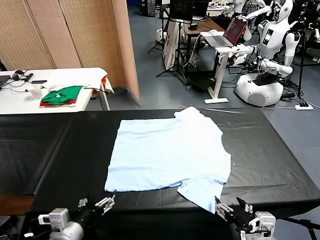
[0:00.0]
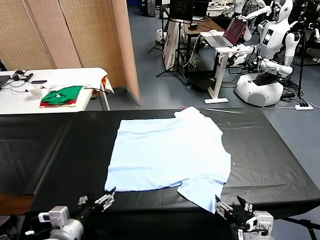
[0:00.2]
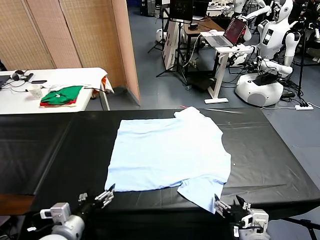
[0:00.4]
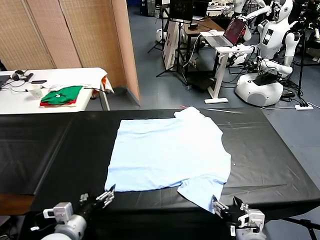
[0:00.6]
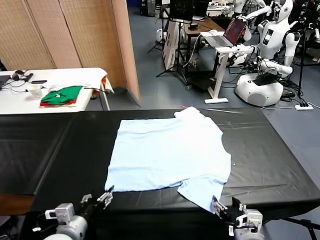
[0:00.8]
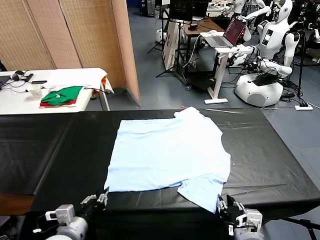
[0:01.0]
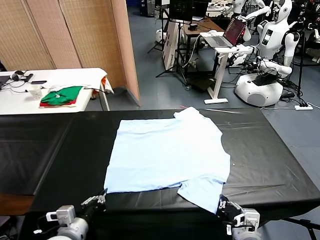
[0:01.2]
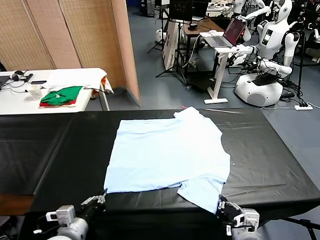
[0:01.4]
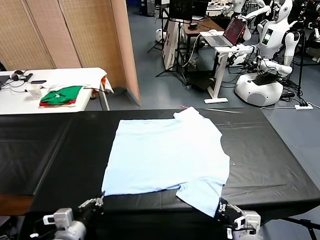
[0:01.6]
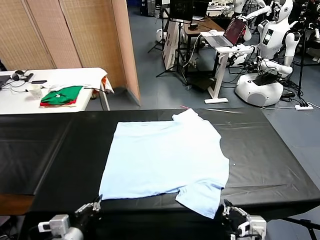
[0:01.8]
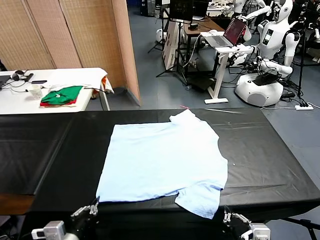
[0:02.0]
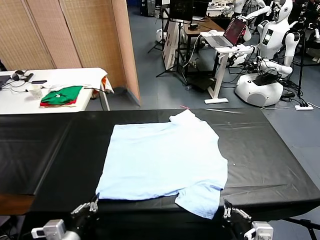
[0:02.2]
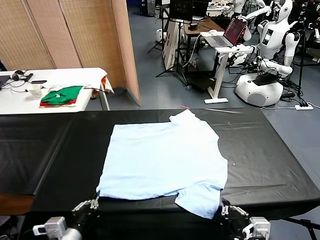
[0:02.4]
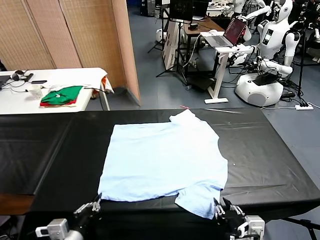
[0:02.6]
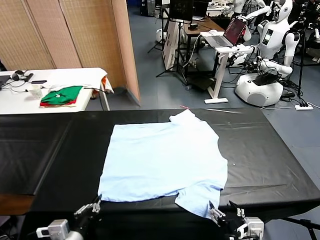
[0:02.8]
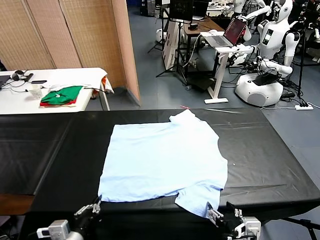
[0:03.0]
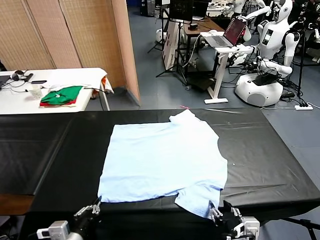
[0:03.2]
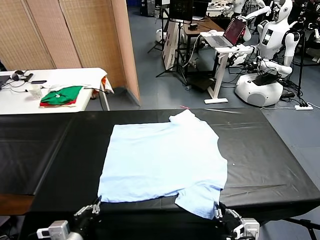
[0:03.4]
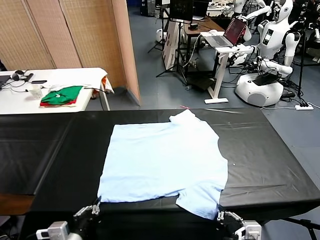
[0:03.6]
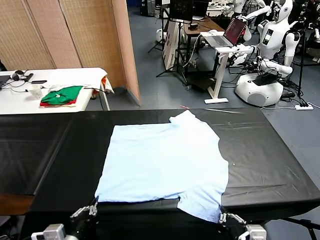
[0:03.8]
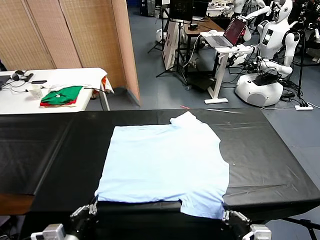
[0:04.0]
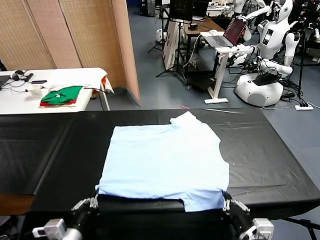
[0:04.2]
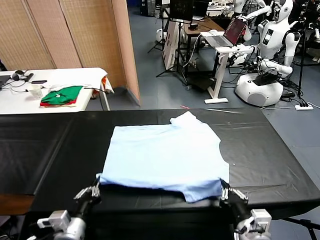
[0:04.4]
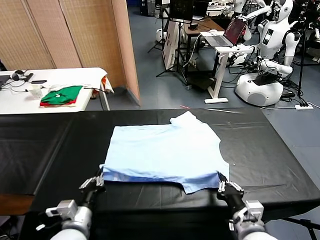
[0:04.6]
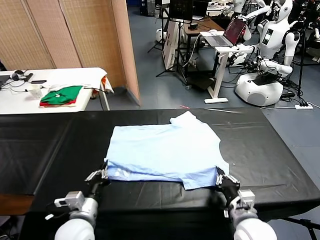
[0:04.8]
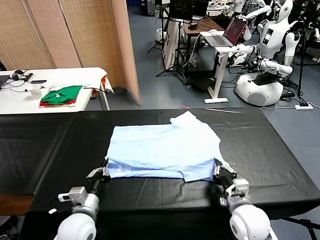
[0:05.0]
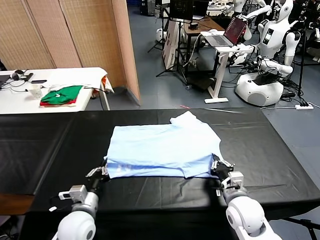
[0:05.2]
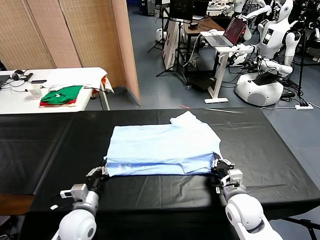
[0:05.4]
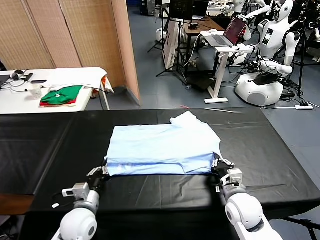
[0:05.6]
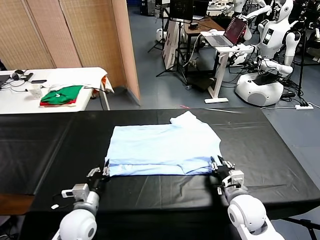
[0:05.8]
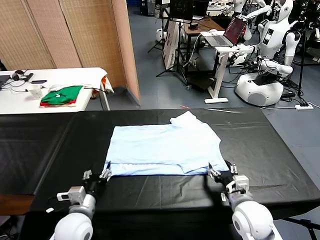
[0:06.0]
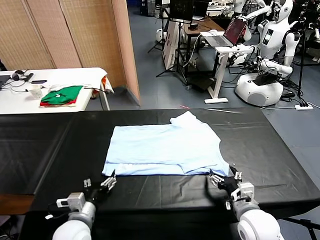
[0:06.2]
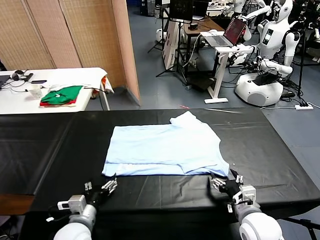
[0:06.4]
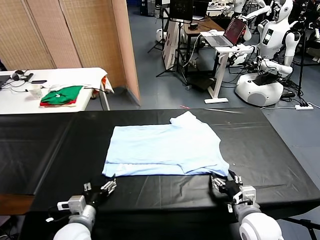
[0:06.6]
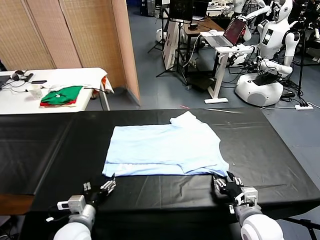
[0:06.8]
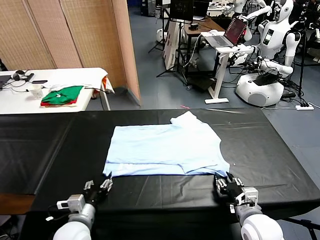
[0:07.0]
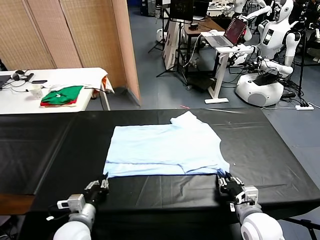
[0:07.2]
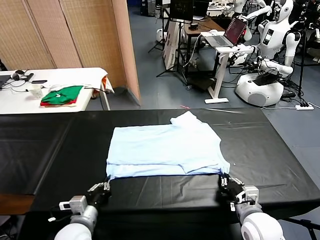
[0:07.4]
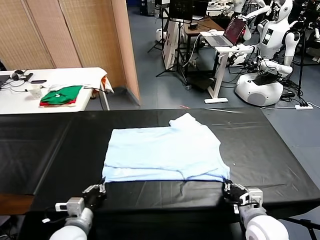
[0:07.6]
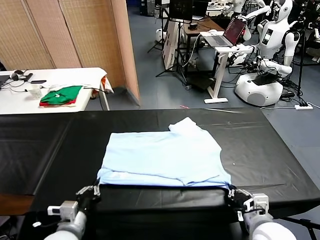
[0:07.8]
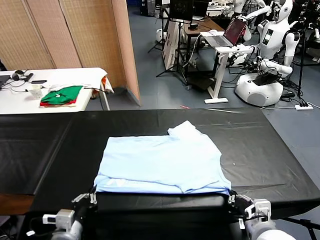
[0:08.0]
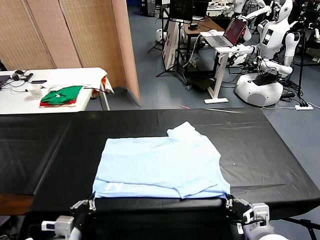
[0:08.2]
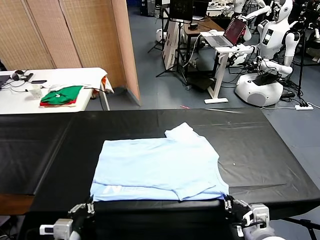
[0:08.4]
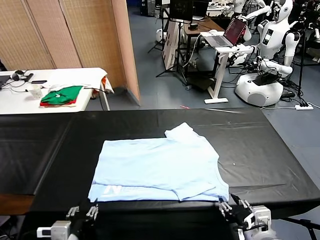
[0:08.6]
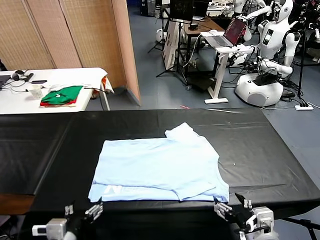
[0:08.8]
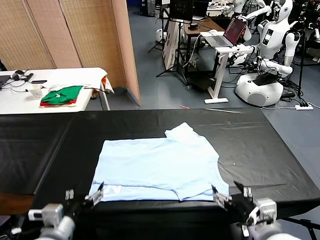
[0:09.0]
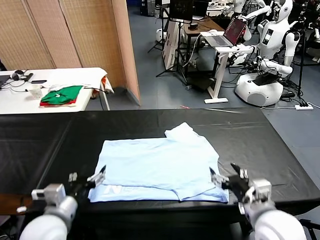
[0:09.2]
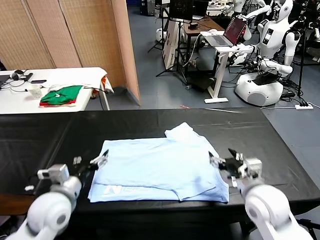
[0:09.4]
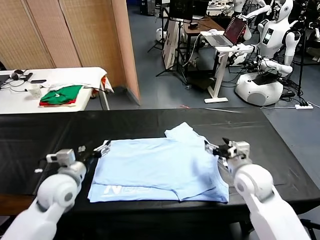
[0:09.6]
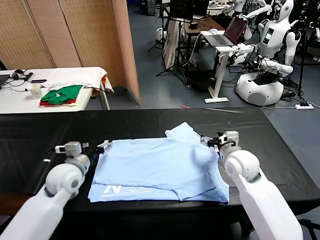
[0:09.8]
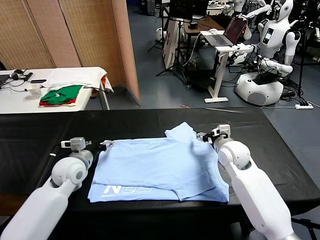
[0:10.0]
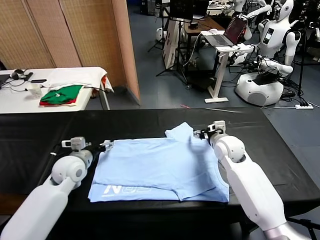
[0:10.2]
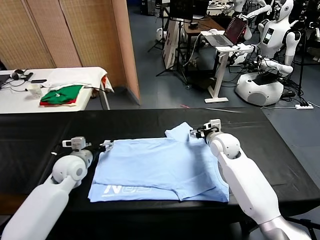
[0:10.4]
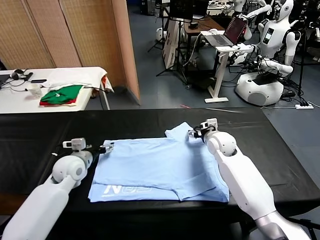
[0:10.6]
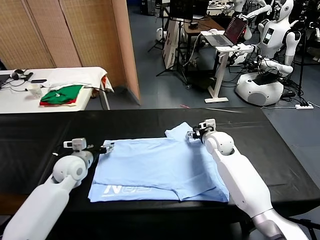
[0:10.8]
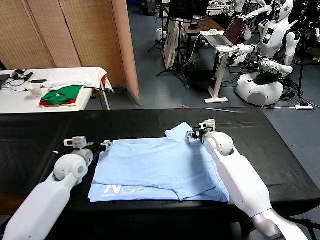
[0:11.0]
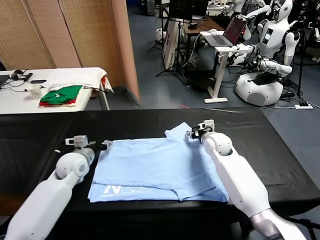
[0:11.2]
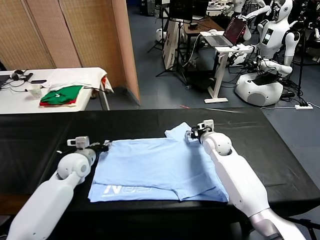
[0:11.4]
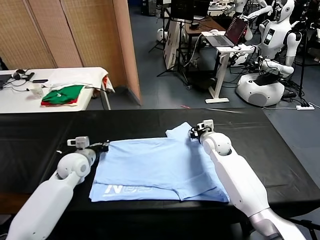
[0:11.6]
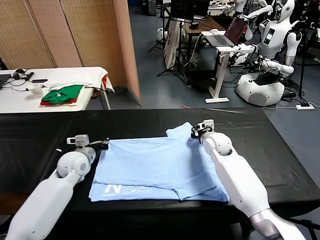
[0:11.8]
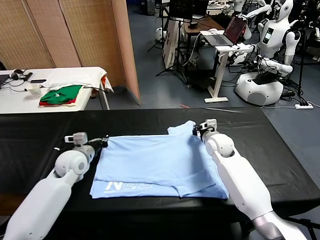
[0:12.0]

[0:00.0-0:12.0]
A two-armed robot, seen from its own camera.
Task of the whole recording: fold and organize the clothes.
Step, 0:00.0 to 0:01.0: use both grippers simultaneously to clamp the lower edge of the clothing fabric.
Step, 0:01.4 to 0:05.8: use both grippers to drag the lower edge of the fabric forward and fold it over the upper edge.
Step, 0:06.0 to 0:08.6: Drag the clothes downward with both gripper.
Step, 0:08.8 to 0:11.8: use both grippers simultaneously to clamp the upper edge of the clothing fabric.
0:01.6 to 0:03.0: The right gripper opens its fingers.
0:03.0 to 0:04.4: The right gripper closes.
0:04.4 to 0:06.0: The left gripper opens up, while the right gripper moves forward, about 5 cm, and opens.
0:06.0 to 0:07.6: The left gripper closes up. Meanwhile the right gripper moves about 5 cm, and closes its fingers.
0:07.6 to 0:09.0: The two grippers go roughly 5 cm upward. The left gripper opens its fingers. Meanwhile the right gripper opens up.
0:09.0 to 0:10.4: The grippers both shift forward by approximately 25 cm.
0:10.4 to 0:12.0: The right gripper closes; the left gripper closes.

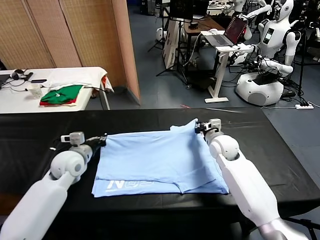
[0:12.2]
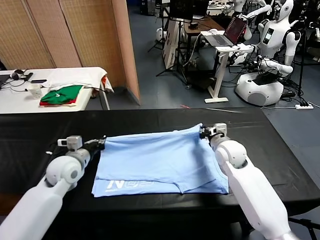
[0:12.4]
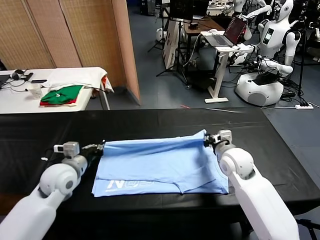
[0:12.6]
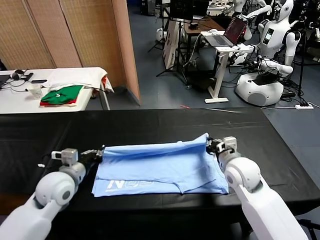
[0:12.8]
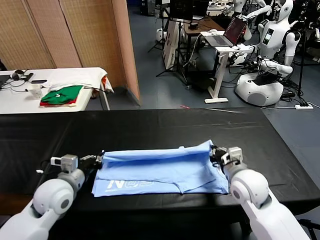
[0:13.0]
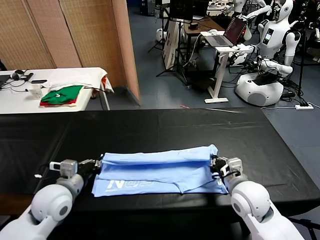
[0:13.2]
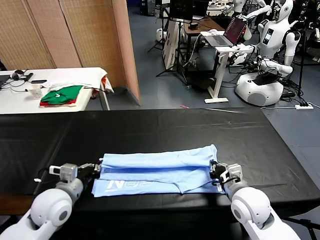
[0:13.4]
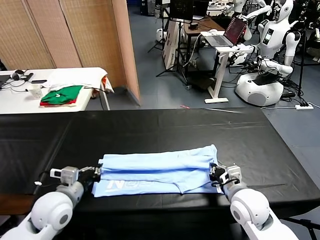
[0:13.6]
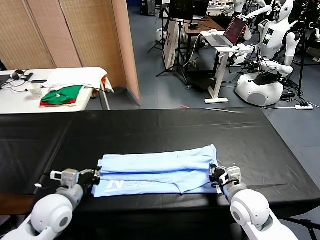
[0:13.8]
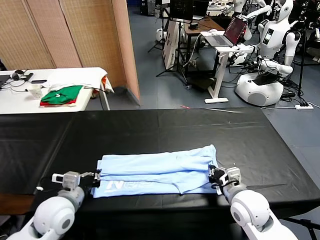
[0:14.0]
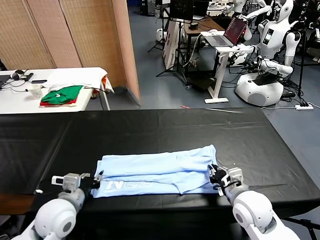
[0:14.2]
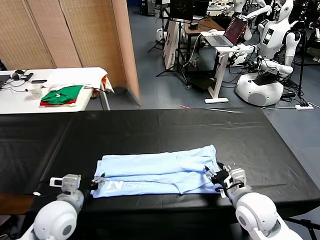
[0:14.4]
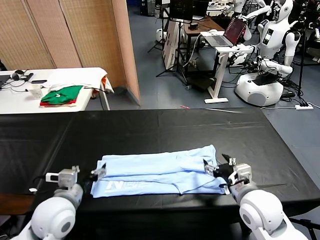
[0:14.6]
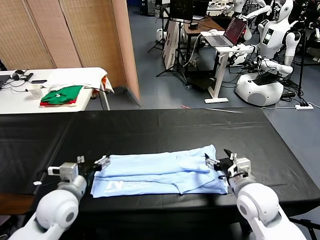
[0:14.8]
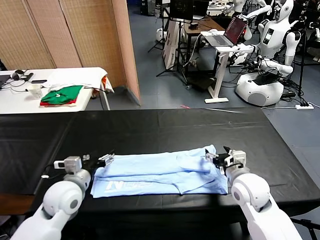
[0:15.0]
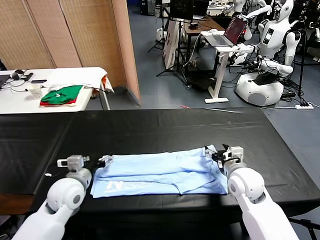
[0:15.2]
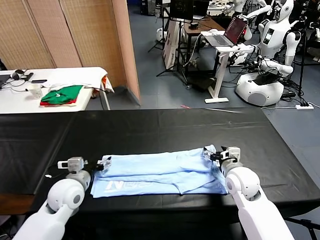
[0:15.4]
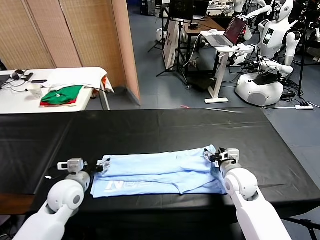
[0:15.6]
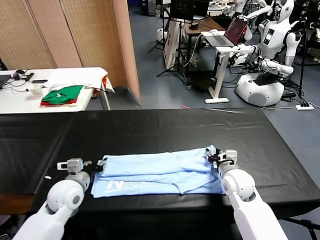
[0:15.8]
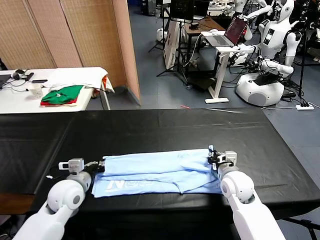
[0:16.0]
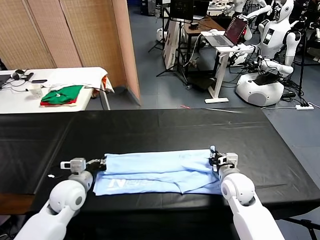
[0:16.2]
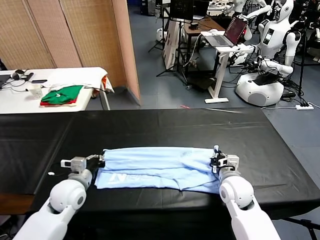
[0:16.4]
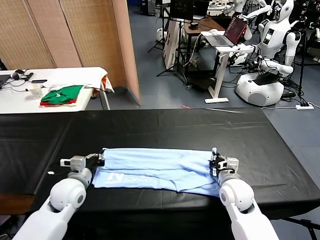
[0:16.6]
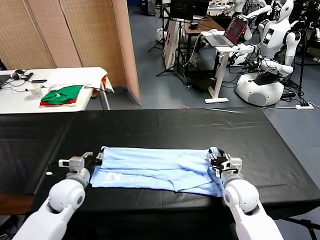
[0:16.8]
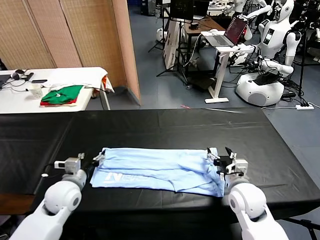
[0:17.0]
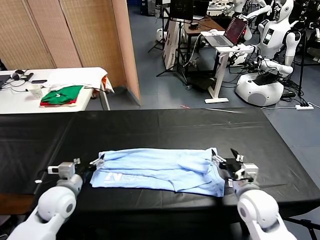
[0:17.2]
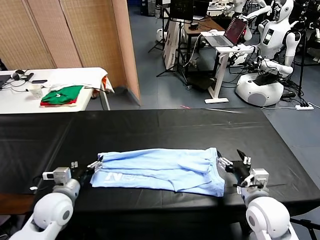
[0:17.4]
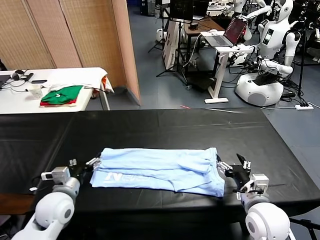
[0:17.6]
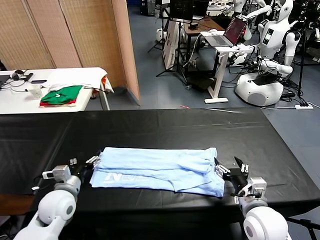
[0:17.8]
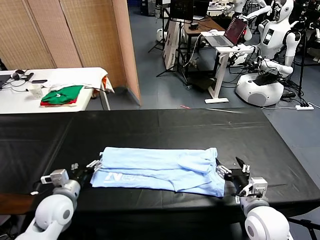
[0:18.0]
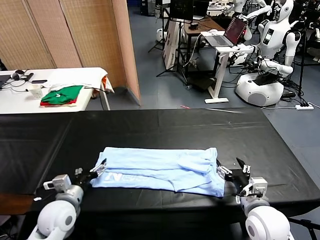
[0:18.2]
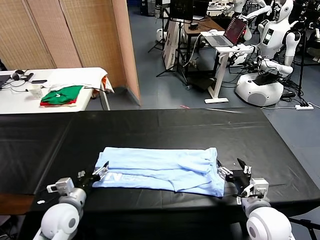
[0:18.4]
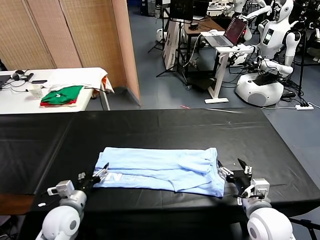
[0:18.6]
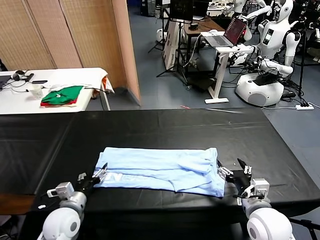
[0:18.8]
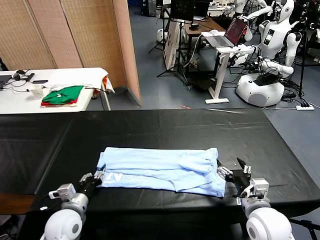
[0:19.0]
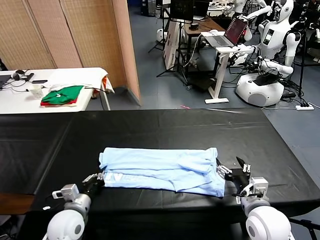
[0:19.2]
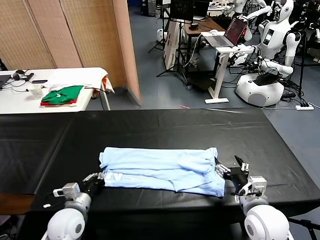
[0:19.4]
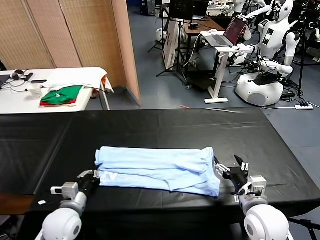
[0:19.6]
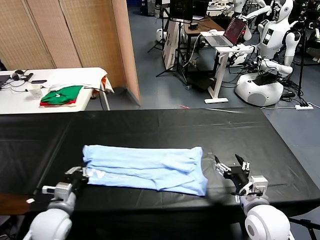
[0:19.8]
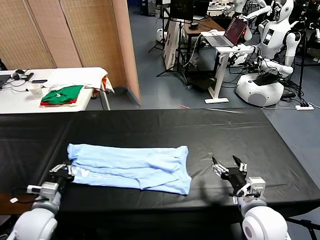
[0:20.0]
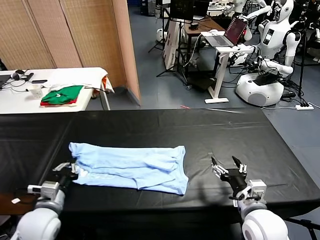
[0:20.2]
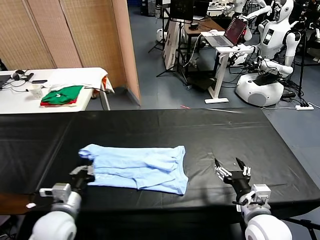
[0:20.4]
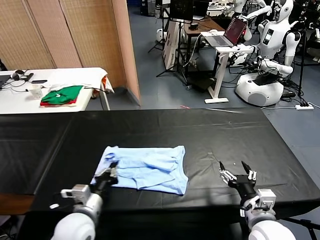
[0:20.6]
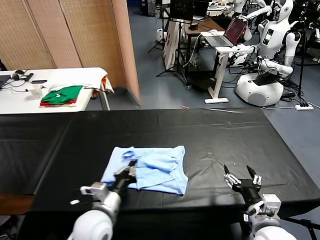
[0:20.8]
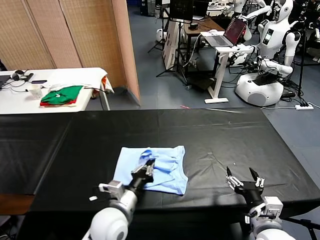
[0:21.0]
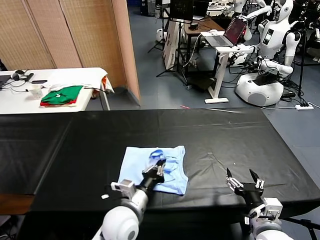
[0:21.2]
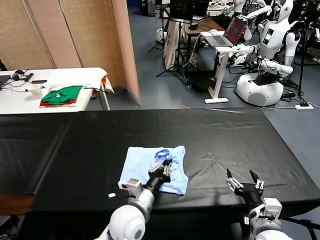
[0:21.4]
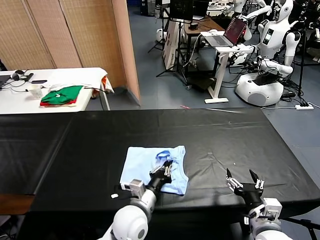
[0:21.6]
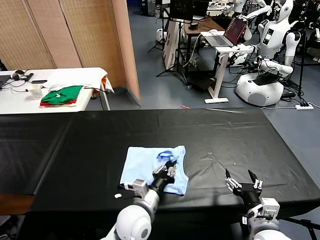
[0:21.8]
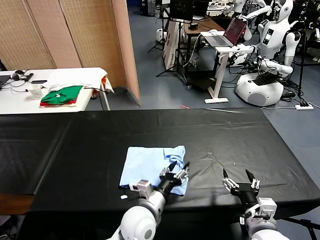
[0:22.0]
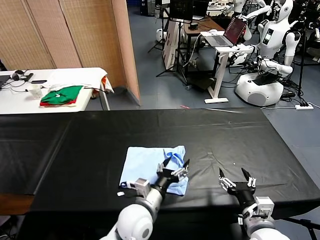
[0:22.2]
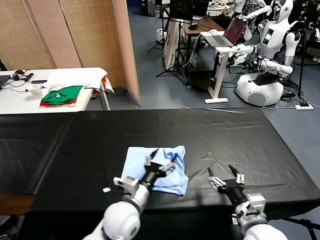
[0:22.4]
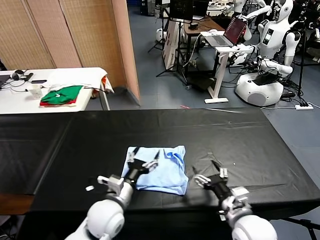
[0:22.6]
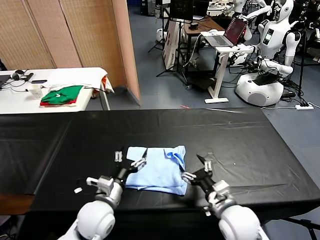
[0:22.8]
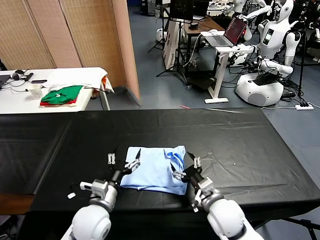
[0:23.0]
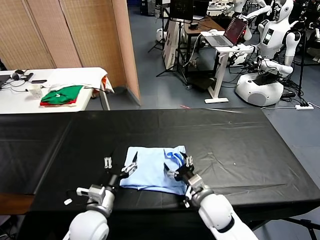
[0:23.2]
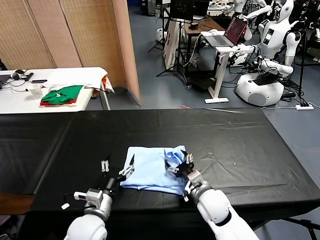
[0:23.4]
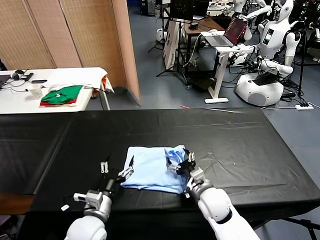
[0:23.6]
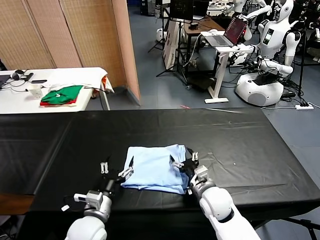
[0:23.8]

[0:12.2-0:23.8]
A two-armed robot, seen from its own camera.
Task of the whole recording: fold and organize the clothes.
Step, 0:12.2 to 0:14.2: use both grippers to drag the upper edge of the fabric backward and fold it over the lower edge.
Step, 0:14.6 to 0:19.4: use the left gripper to clamp the left edge of the fabric.
Step, 0:19.6 to 0:22.0: use the left gripper to drag the left edge of the fabric to the left and folds it over the right edge.
0:12.2 to 0:13.6: Both grippers move backward, some 15 cm.
0:13.6 to 0:15.0: The left gripper opens. Meanwhile the right gripper moves forward, about 5 cm, and opens.
0:15.0 to 0:16.6: The left gripper closes up, while the right gripper shifts by about 5 cm, and closes its fingers.
0:16.6 to 0:18.0: The left gripper moves backward, roughly 5 cm, and opens. The right gripper moves backward, roughly 10 cm, and opens.
0:18.0 to 0:19.4: The left gripper changes place by roughly 5 cm, and closes.
0:19.4 to 0:21.0: The left gripper moves to the right, about 15 cm, while the right gripper goes approximately 5 cm backward.
0:21.0 to 0:22.4: The left gripper opens.
0:22.4 to 0:23.8: The left gripper shifts roughly 10 cm to the left, while the right gripper goes some 15 cm forward, to the left and downward.
